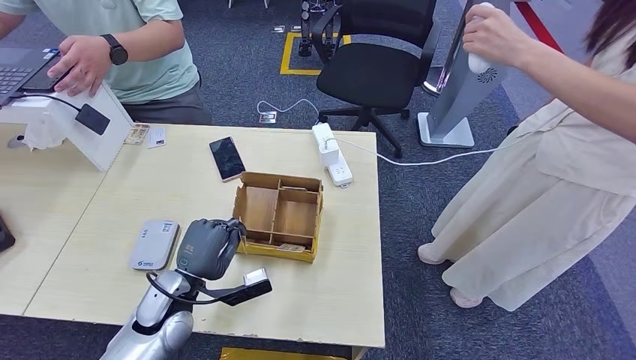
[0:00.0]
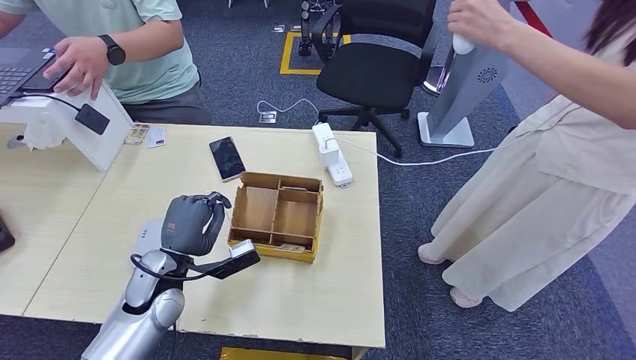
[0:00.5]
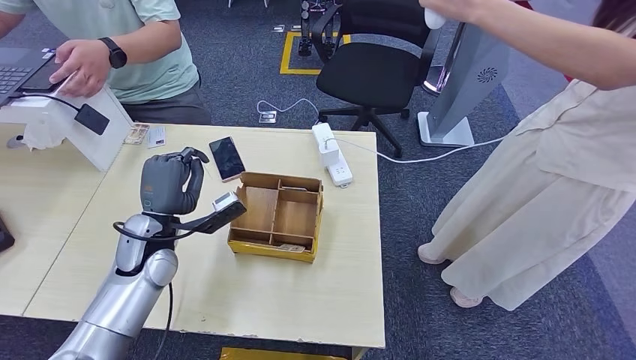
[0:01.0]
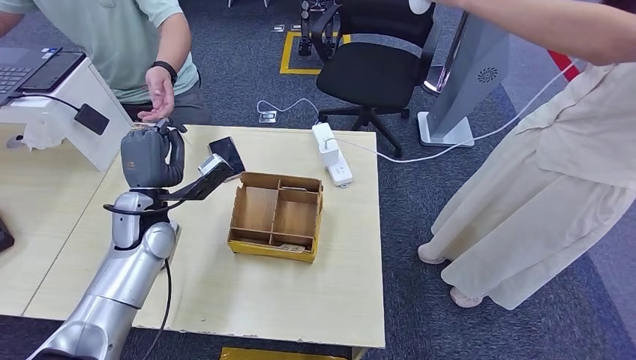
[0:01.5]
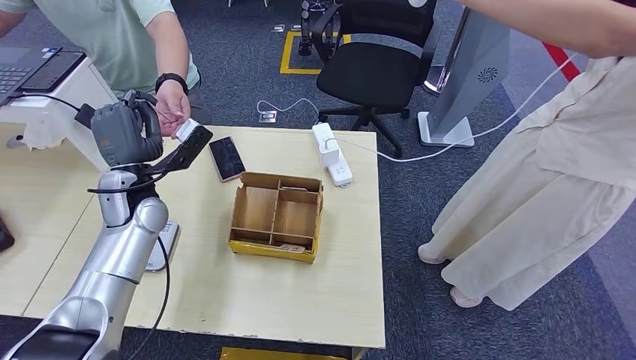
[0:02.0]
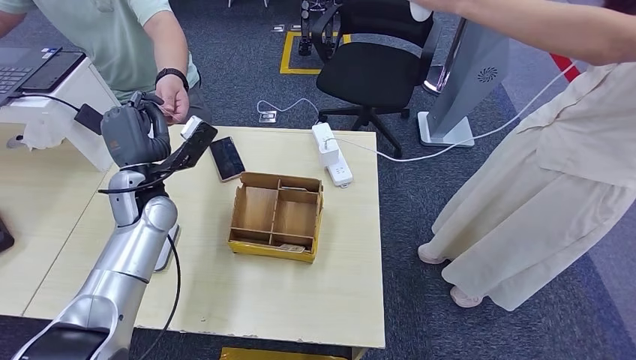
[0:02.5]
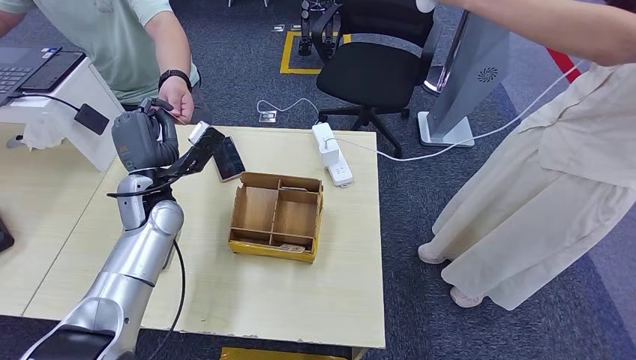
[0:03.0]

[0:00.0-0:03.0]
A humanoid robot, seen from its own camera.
Step, 0:00.0 to 0:03.0: Hand the room key to the person.
0:01.5 to 0:03.0: The hands stay close to where they were, moving slightly.
